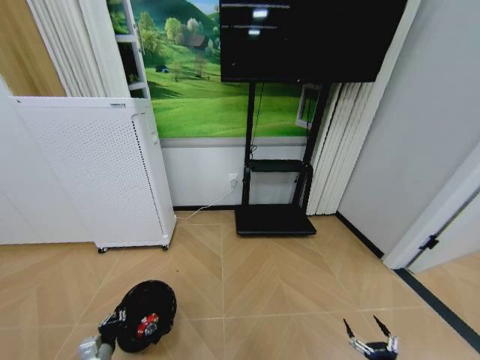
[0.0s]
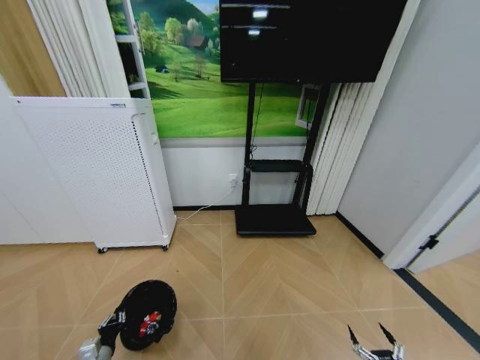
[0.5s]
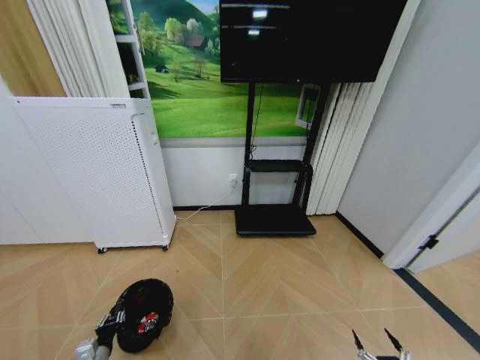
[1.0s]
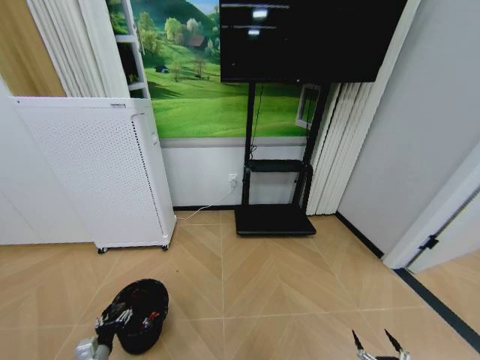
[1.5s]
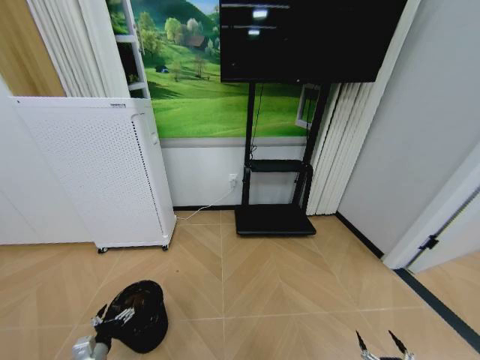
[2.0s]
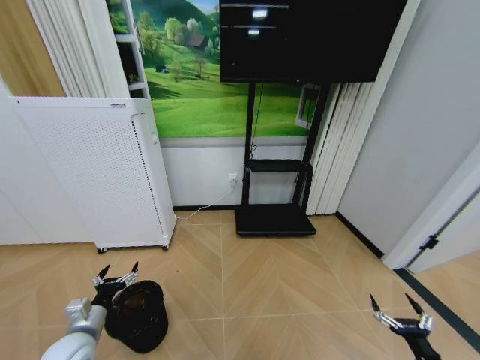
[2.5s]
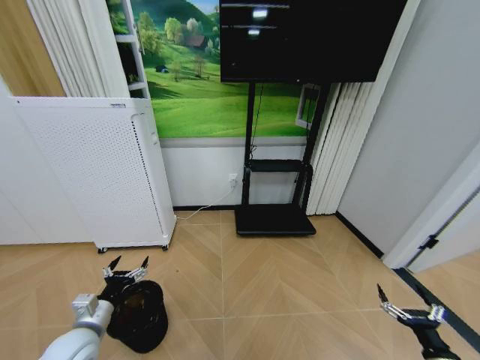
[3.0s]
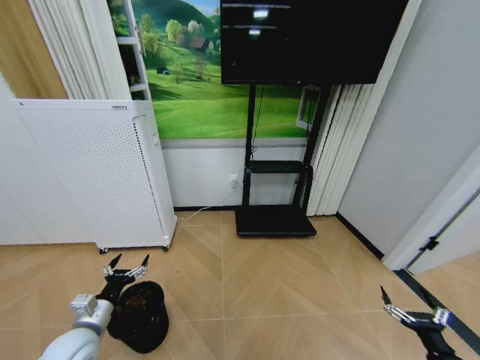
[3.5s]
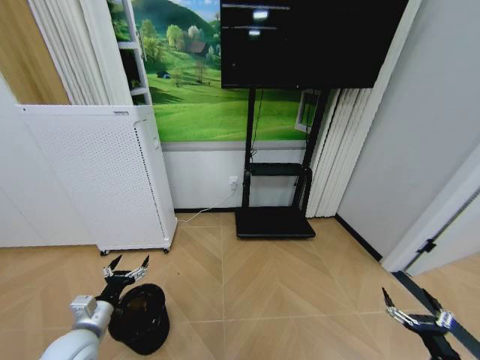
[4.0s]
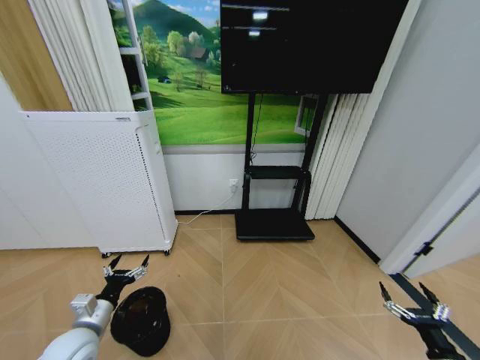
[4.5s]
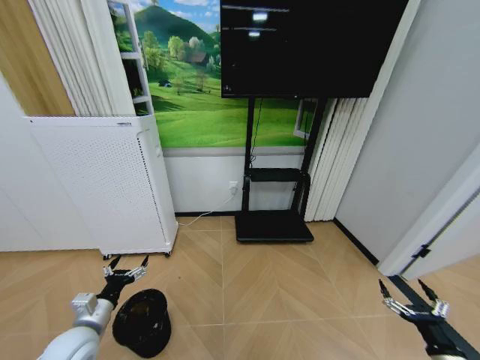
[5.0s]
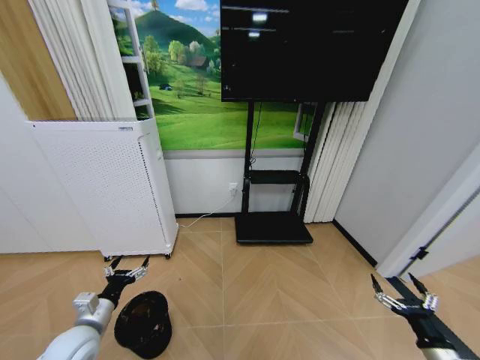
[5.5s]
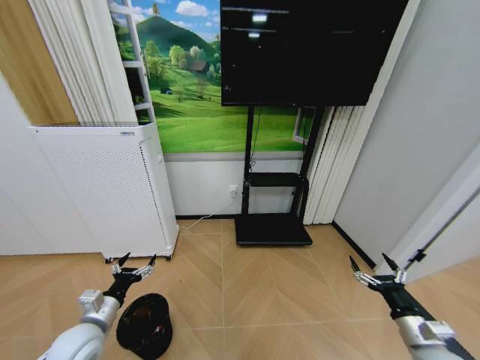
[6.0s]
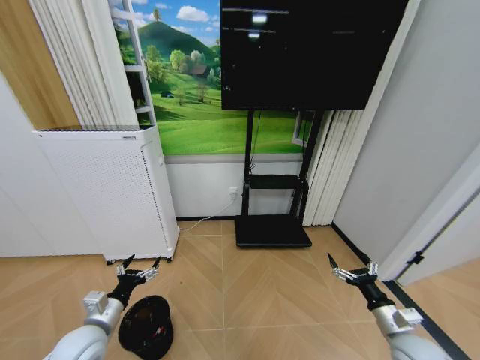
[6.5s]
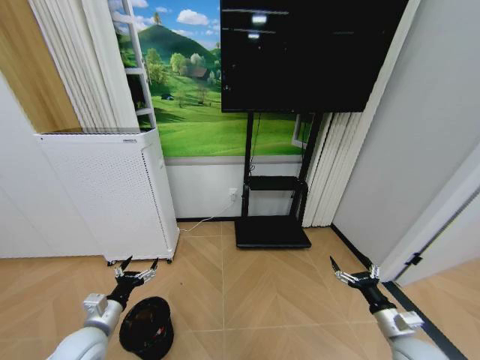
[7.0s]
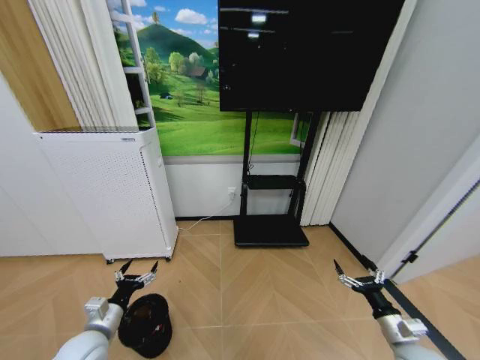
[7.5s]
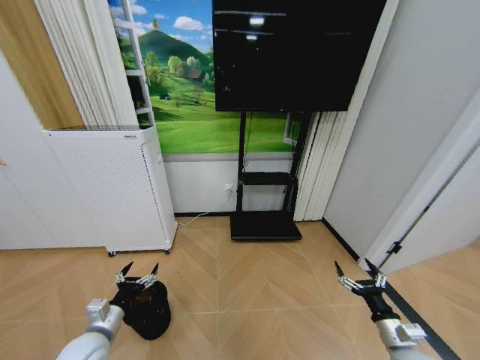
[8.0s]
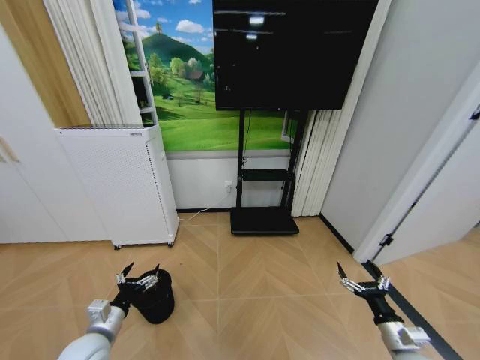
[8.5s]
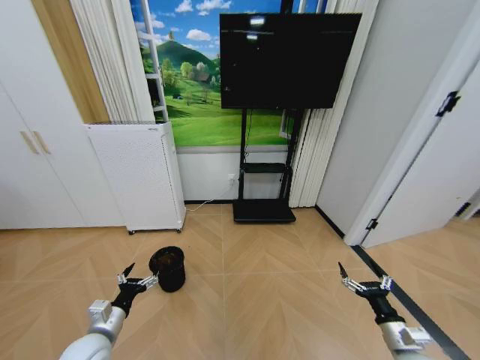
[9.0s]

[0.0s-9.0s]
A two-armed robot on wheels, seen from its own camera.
Task of the whole recording: Pick up the trash bin and place the garbage on the floor into it.
0.0s to 2.0s: The left gripper opens its fingers.
2.0s to 4.5s: The left gripper travels upward by approximately 15 cm. The right gripper goes some 15 cm upward and forward.
4.5s to 7.0s: The right gripper travels forward and to the left by some 10 cm.

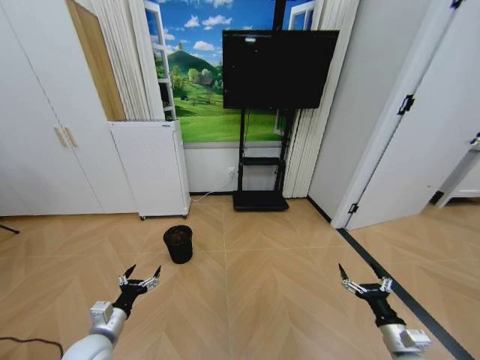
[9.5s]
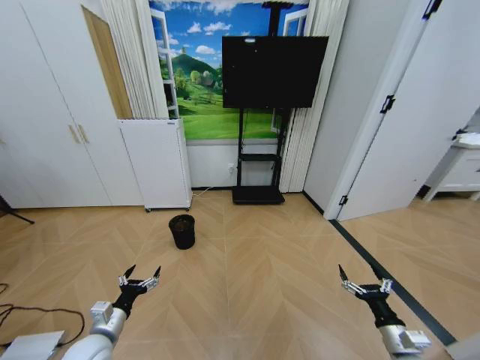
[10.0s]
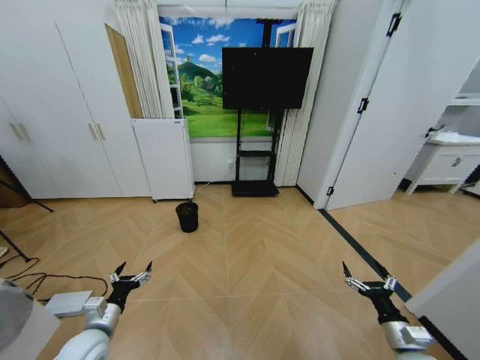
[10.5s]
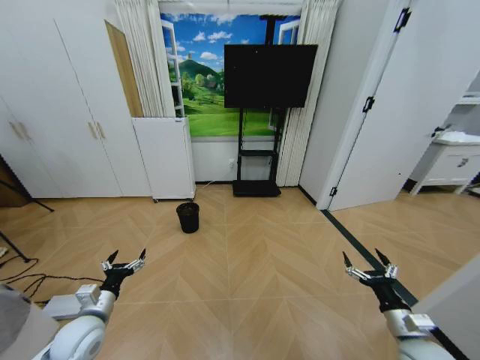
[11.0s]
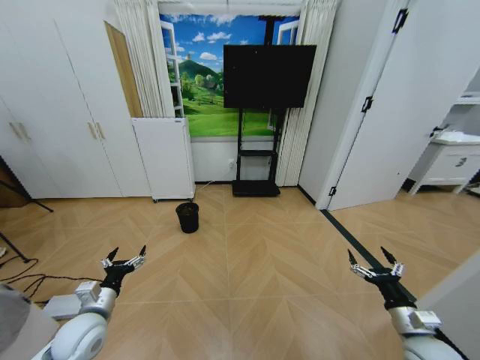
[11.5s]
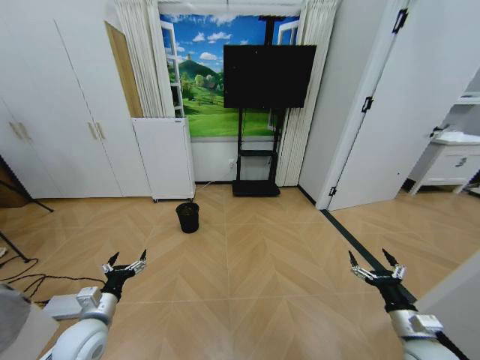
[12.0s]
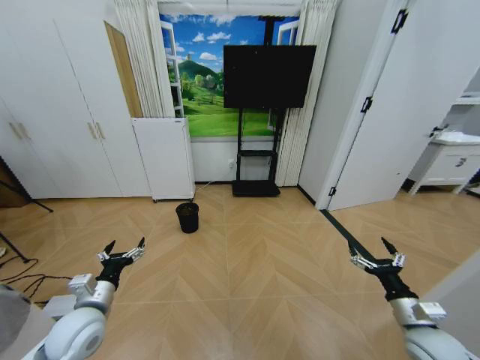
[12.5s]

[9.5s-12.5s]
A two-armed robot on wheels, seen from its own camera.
Task of the whole recording: Pick up the trash bin and place the garbage on the floor into it.
11.0s to 12.5s: The left gripper travels upward by about 5 cm.
